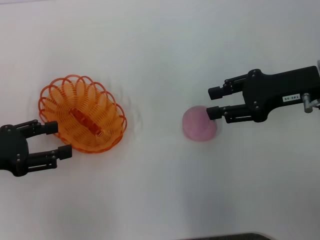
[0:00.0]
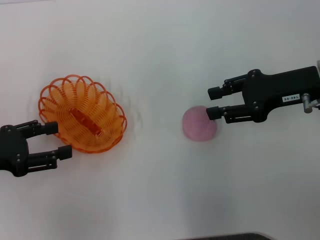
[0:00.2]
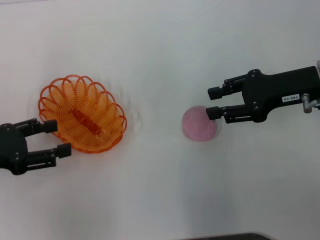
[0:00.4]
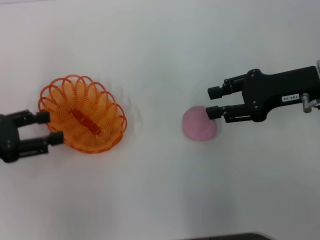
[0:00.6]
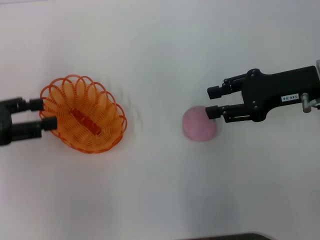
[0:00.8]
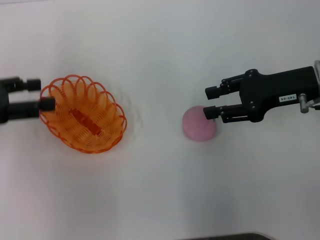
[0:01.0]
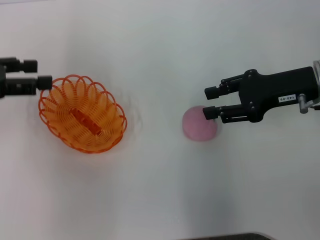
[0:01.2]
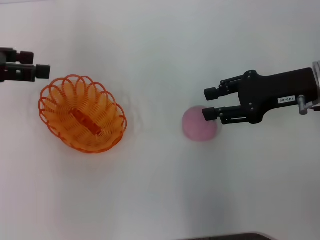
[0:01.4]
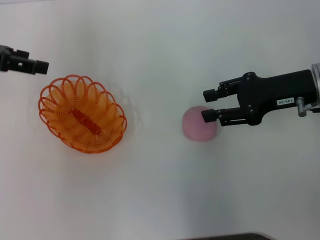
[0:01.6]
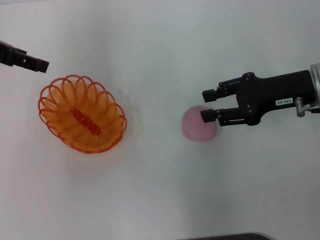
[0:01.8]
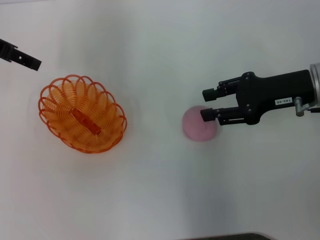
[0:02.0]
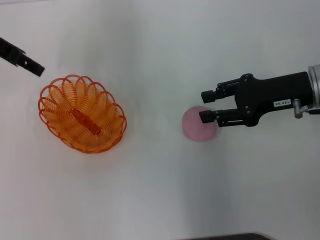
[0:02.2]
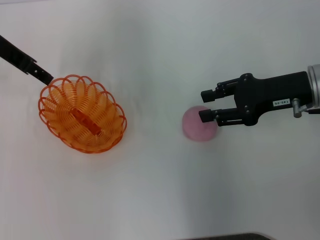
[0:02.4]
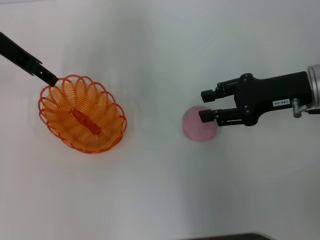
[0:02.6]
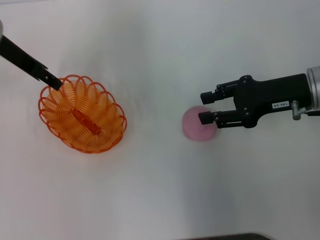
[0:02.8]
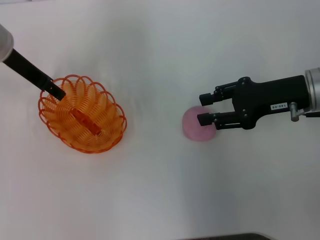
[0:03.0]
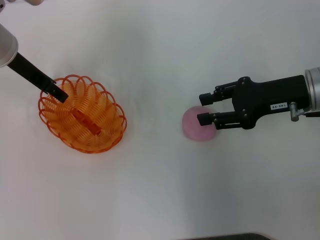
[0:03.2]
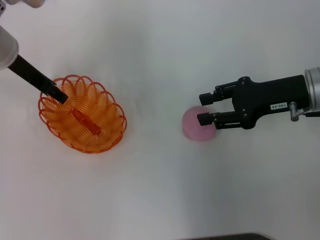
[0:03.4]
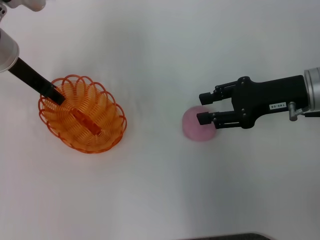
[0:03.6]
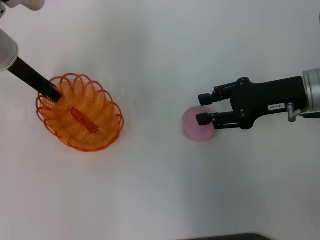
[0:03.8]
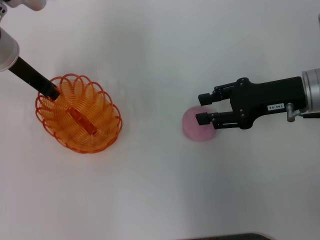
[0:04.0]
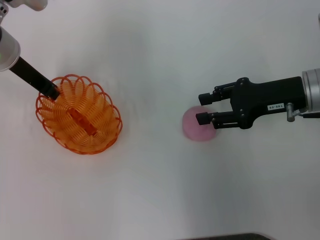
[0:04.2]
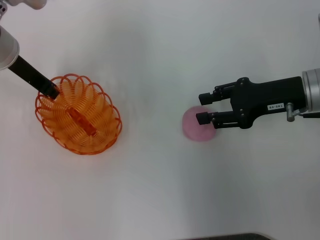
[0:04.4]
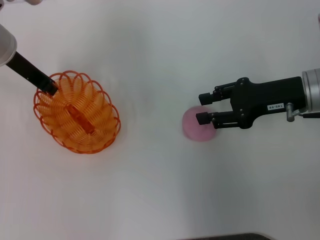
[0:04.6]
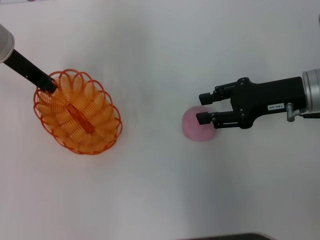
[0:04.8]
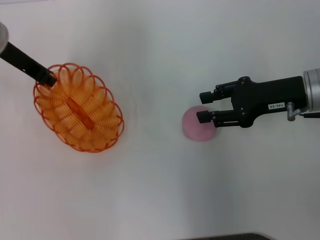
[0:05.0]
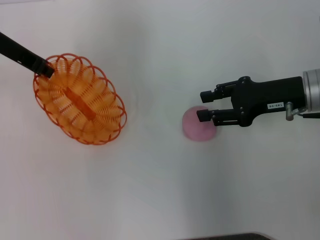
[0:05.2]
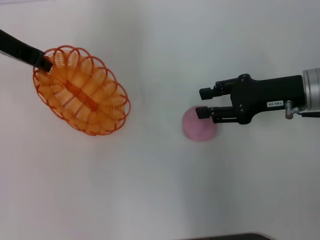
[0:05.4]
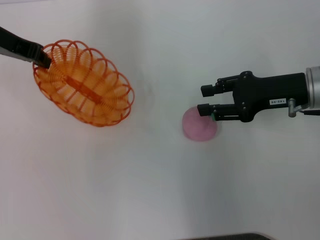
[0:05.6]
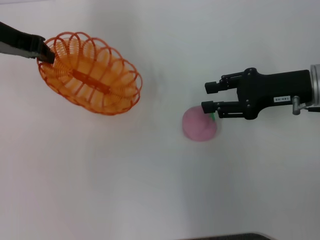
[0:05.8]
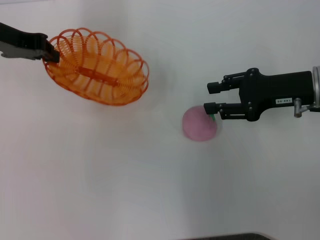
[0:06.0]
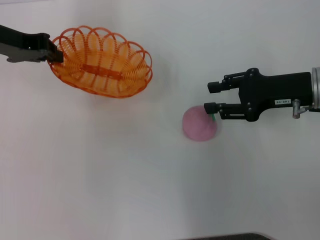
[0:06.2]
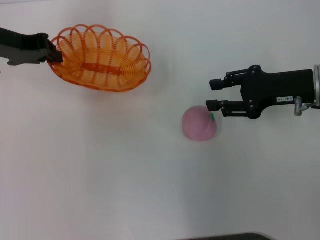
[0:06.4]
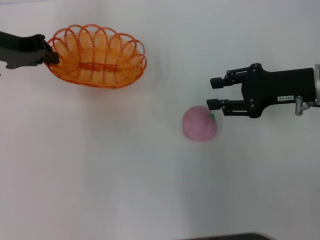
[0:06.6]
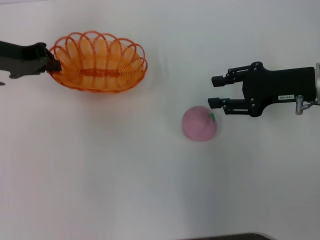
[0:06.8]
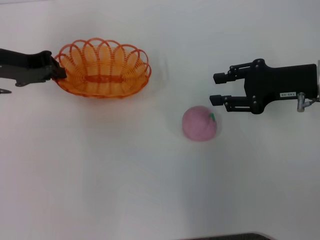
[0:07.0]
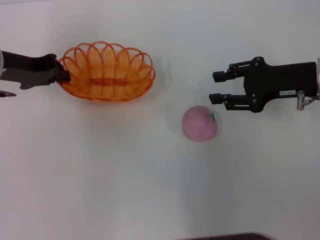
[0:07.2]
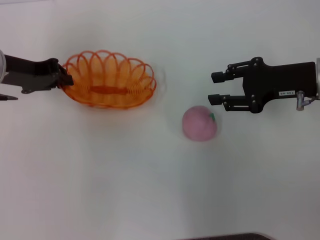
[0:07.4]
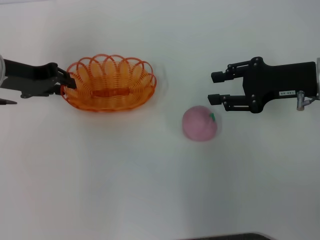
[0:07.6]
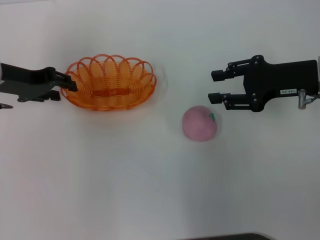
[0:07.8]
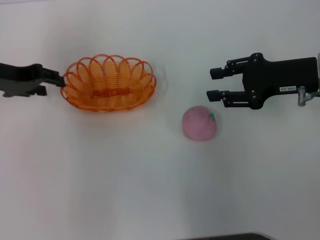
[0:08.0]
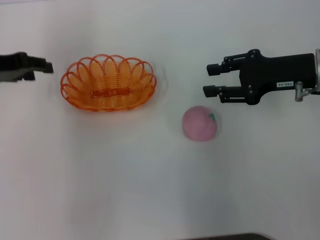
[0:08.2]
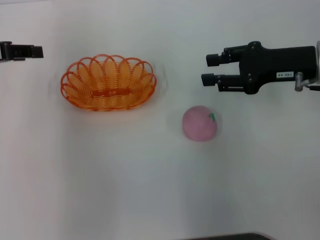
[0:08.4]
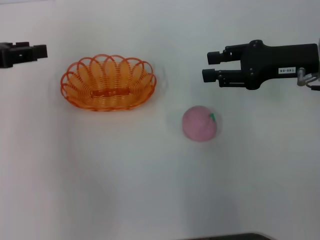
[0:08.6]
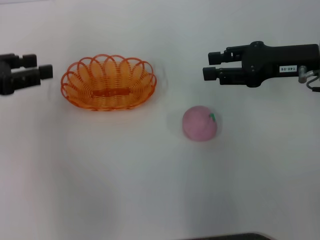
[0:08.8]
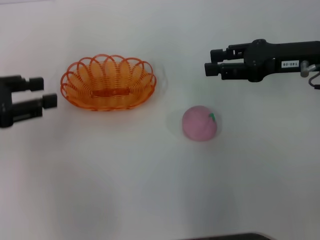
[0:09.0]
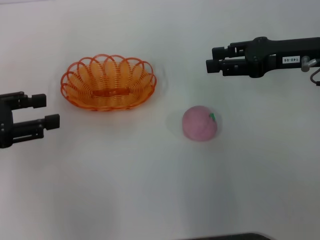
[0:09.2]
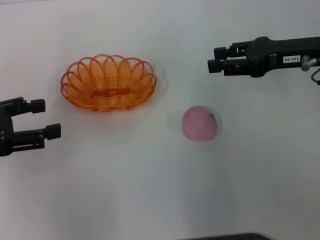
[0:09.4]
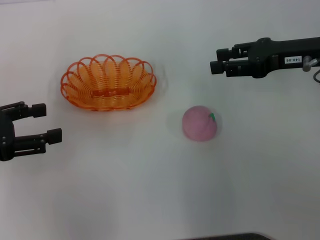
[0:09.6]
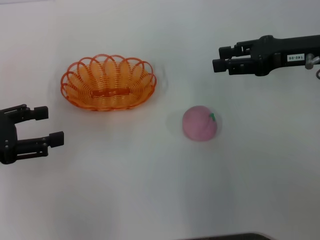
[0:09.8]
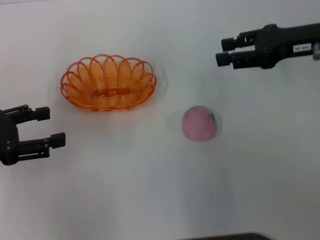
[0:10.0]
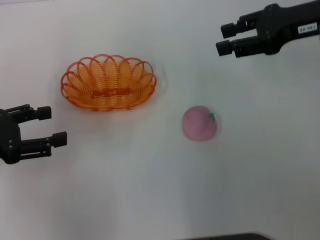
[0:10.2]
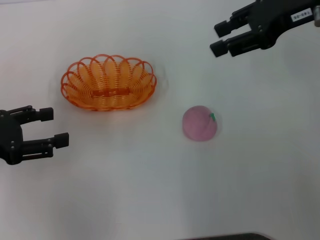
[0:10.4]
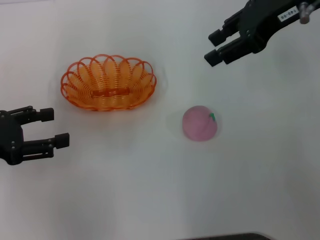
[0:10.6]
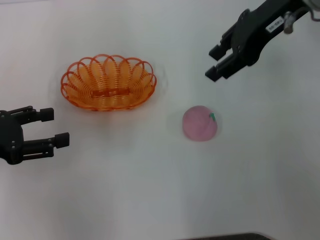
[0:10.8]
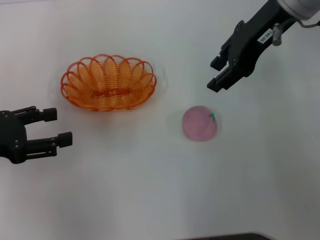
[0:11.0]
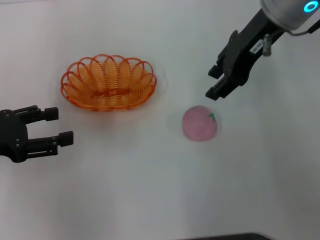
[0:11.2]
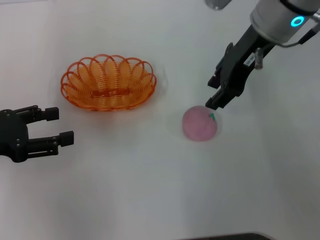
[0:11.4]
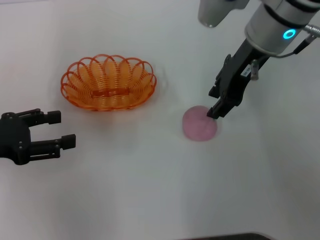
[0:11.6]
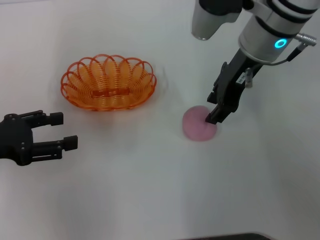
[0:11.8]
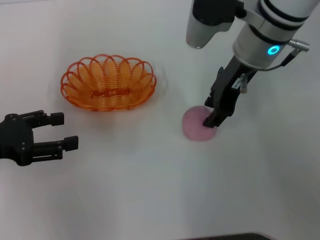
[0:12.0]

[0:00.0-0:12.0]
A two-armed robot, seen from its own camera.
Step, 0:00.0 to 0:05.4: Pick up the basket with the left gripper.
Step, 0:05.6 to 0:09.2: Place the basket in the center of view with the left gripper.
0:00.0 to 0:01.6: The left gripper shifts about 15 cm forward and upward.
0:01.6 to 0:03.0: The left gripper is displaced to the right by approximately 10 cm.
0:03.0 to 0:04.4: The left gripper closes up.
0:04.4 to 0:06.0: The left gripper changes place by some 5 cm.
0:06.0 to 0:07.6: The left gripper is displaced downward by roughly 5 cm.
0:07.6 to 0:09.0: The left gripper goes some 10 cm backward and to the left, and opens its fingers.
0:09.0 to 0:10.4: The right gripper shifts about 10 cm upward.
0:10.4 to 0:12.0: The right gripper is displaced to the left and downward by some 15 cm.

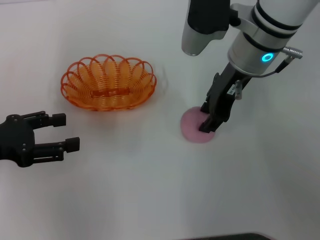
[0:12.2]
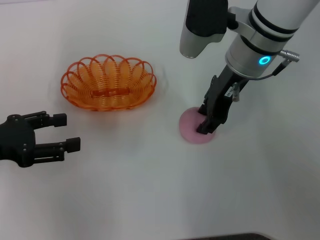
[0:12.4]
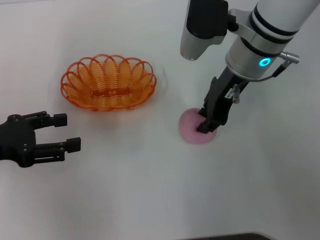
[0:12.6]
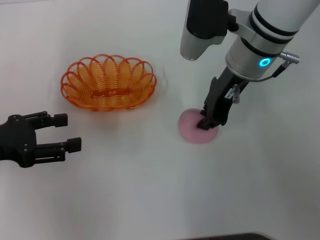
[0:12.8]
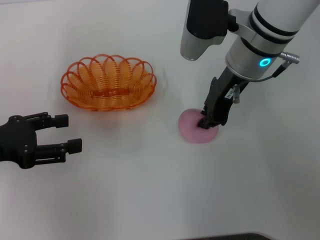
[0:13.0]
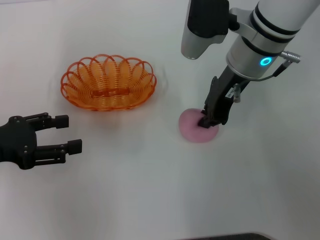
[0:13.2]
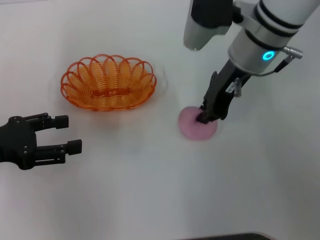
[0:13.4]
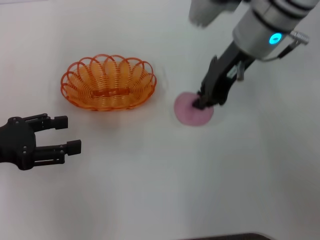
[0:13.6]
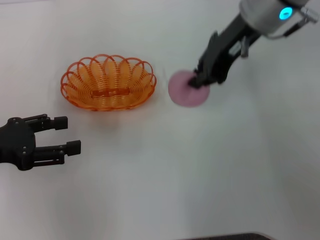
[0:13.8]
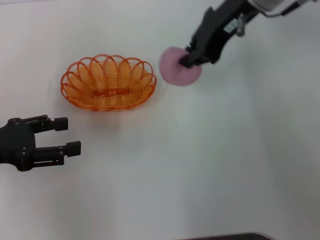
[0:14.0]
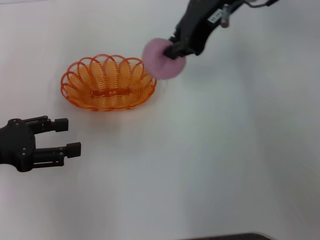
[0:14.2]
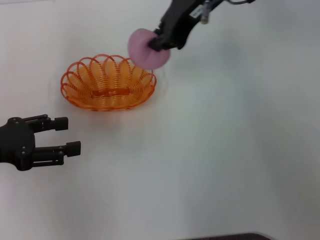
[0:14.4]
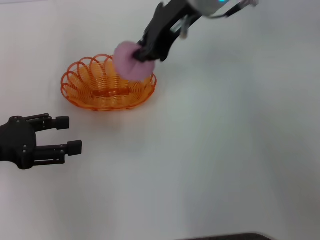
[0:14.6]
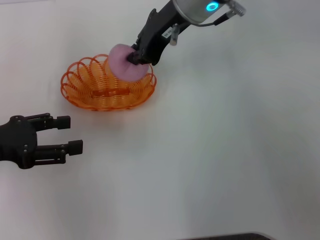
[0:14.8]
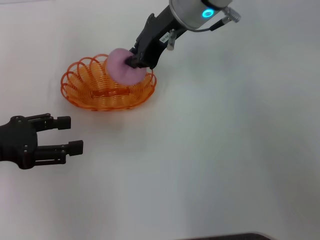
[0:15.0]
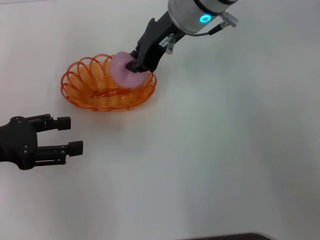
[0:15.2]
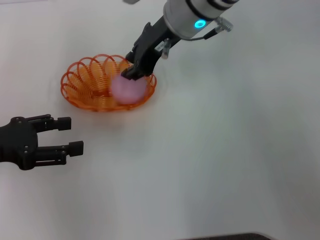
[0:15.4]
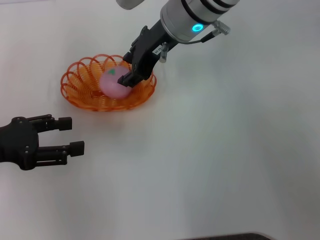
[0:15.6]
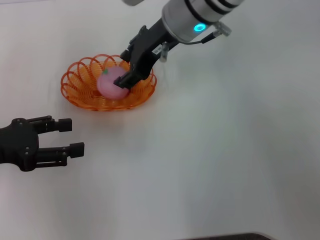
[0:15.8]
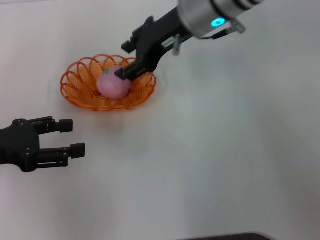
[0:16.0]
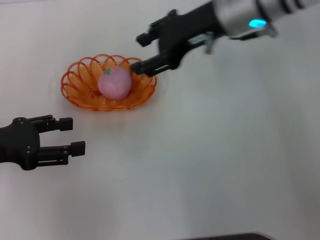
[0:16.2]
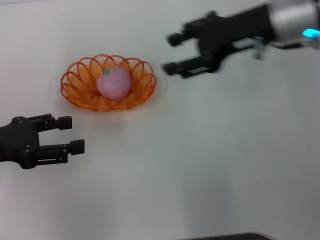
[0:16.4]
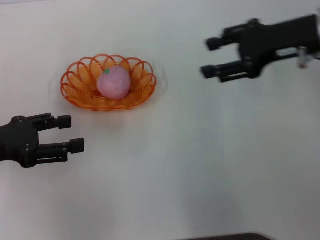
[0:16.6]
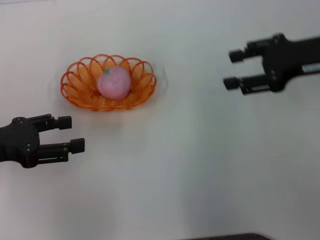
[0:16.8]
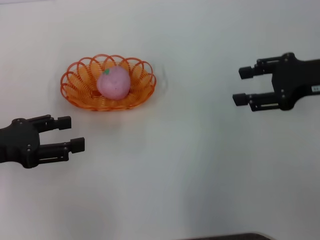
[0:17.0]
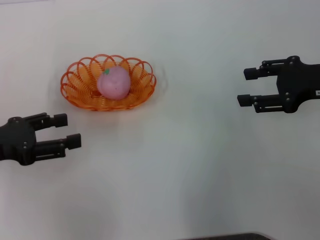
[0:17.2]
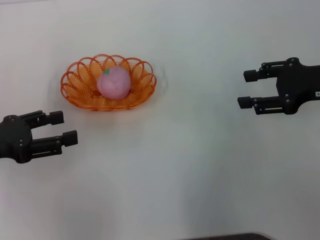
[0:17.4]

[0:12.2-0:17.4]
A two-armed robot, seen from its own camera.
Step, 0:14.2 to 0:16.4: Place the peach into the basket with the right gripper.
0:12.2 to 0:14.0: The right gripper is displaced upward by about 10 cm, and closes up.
0:14.0 to 0:15.6: The right gripper moves to the left and downward, approximately 10 cm, and opens up.
0:15.6 to 0:17.4: The right gripper moves to the right and backward, some 25 cm, and opens up.
